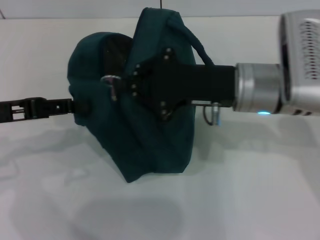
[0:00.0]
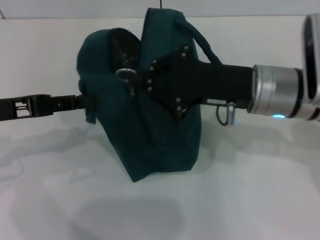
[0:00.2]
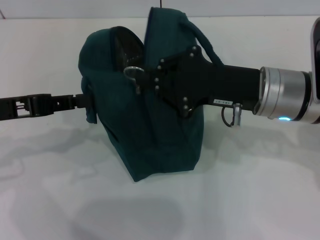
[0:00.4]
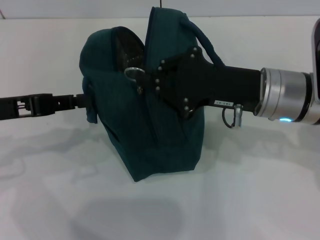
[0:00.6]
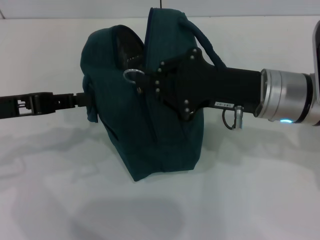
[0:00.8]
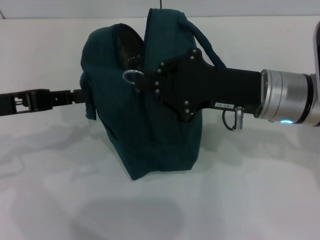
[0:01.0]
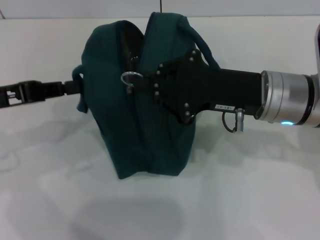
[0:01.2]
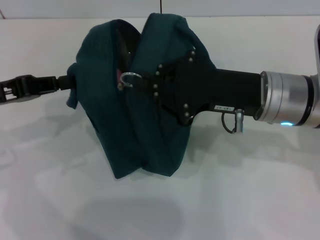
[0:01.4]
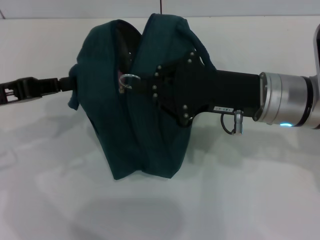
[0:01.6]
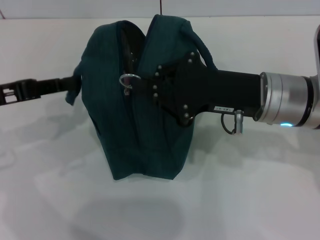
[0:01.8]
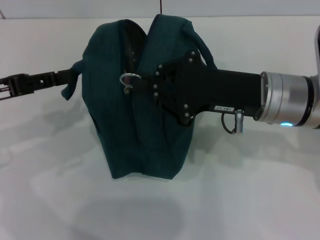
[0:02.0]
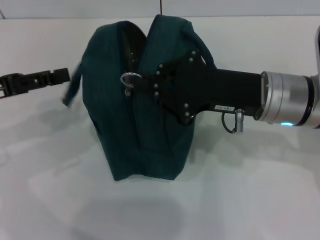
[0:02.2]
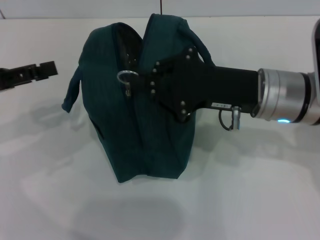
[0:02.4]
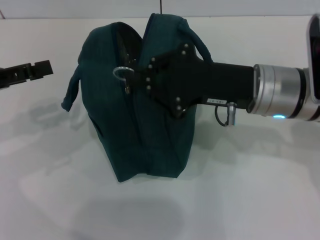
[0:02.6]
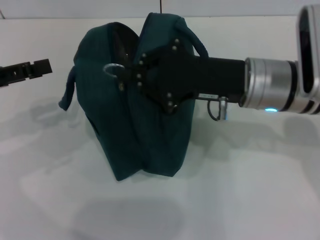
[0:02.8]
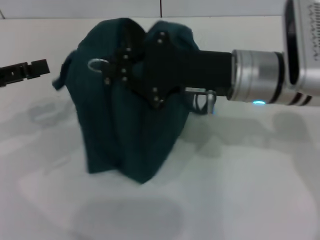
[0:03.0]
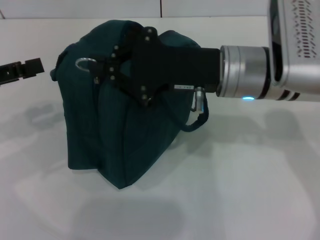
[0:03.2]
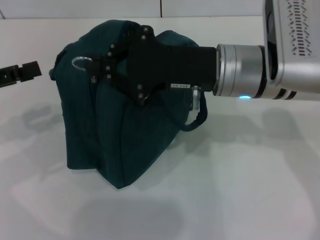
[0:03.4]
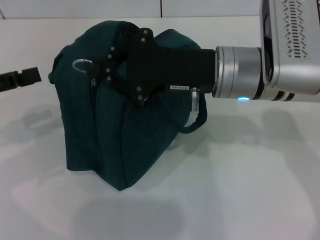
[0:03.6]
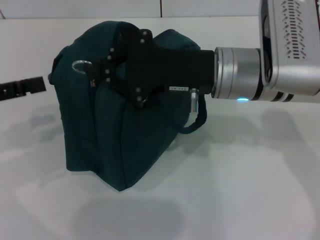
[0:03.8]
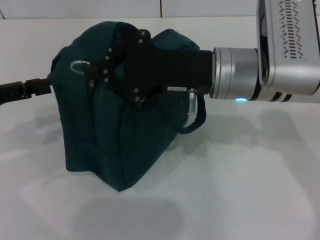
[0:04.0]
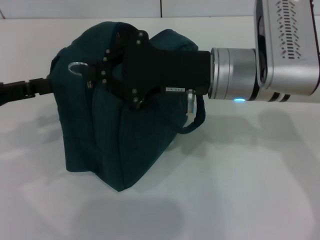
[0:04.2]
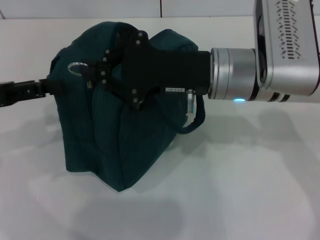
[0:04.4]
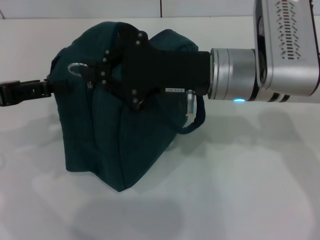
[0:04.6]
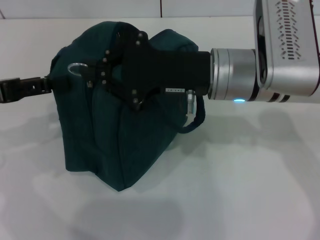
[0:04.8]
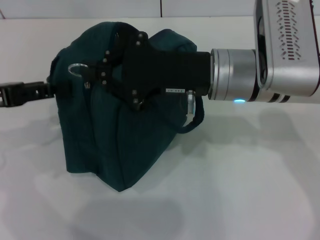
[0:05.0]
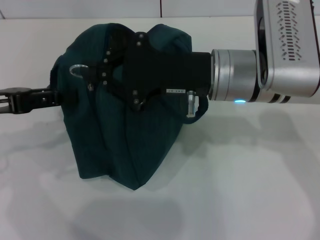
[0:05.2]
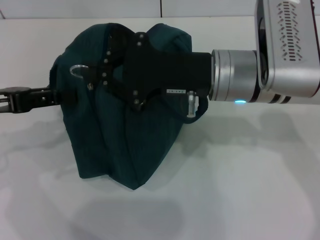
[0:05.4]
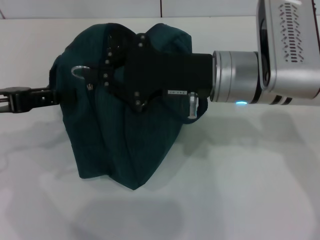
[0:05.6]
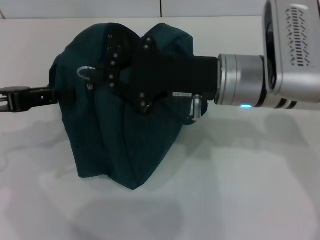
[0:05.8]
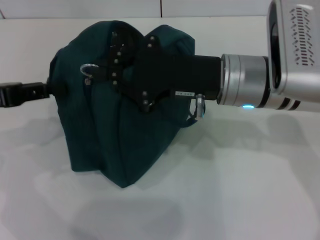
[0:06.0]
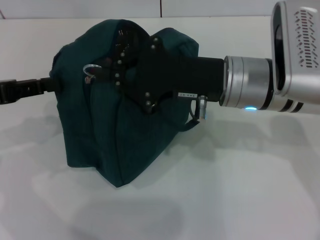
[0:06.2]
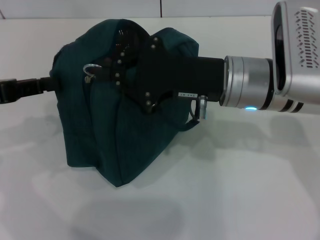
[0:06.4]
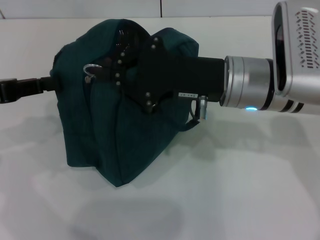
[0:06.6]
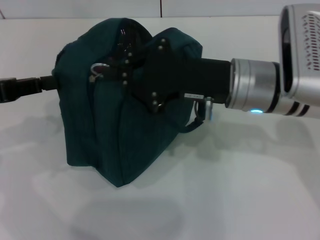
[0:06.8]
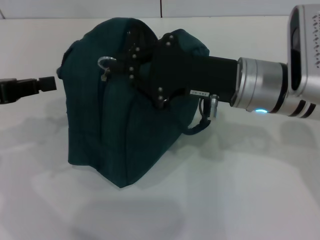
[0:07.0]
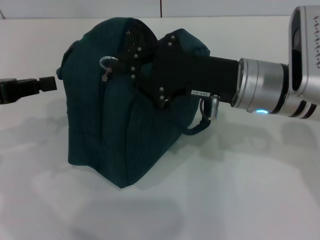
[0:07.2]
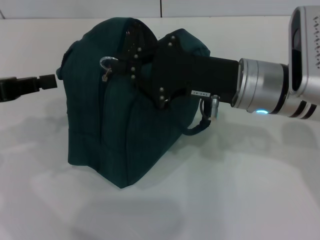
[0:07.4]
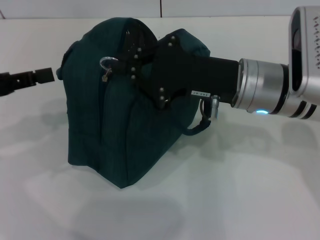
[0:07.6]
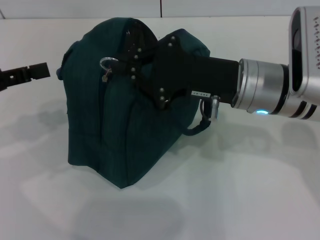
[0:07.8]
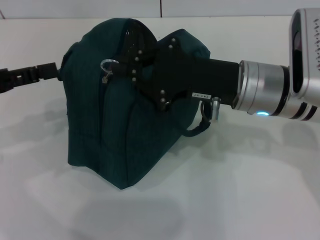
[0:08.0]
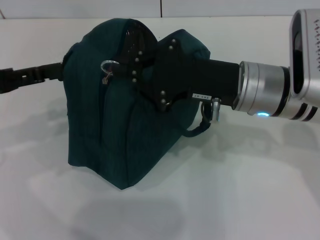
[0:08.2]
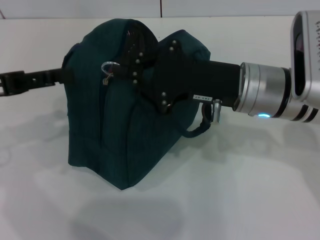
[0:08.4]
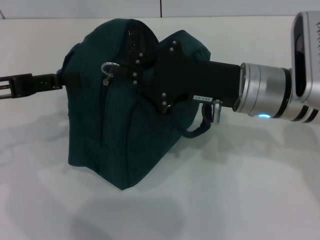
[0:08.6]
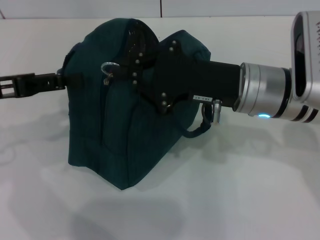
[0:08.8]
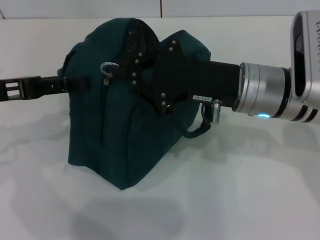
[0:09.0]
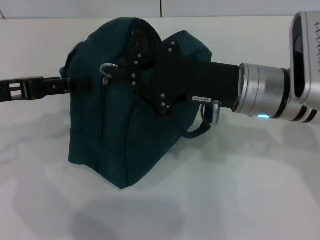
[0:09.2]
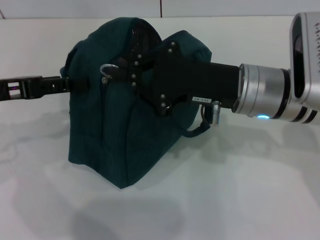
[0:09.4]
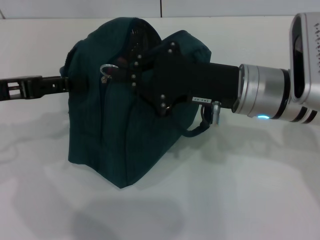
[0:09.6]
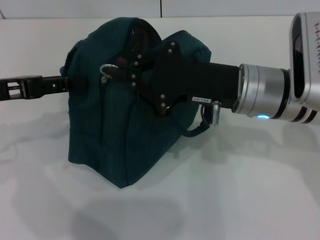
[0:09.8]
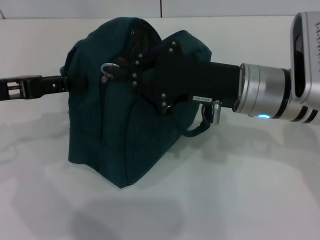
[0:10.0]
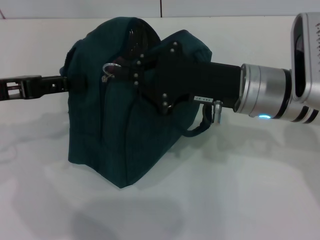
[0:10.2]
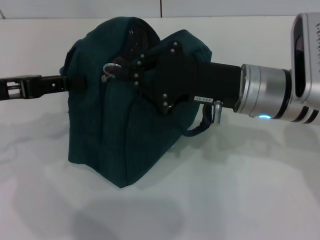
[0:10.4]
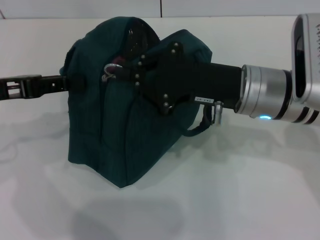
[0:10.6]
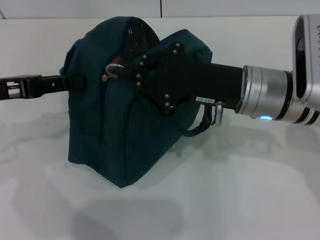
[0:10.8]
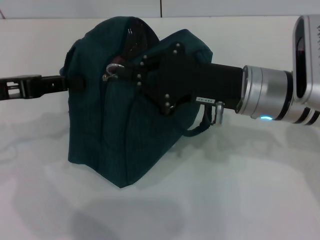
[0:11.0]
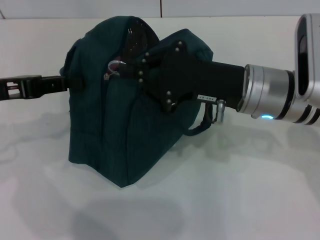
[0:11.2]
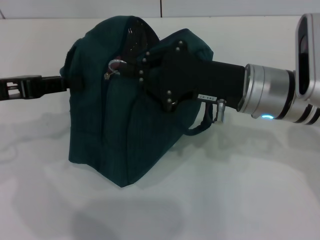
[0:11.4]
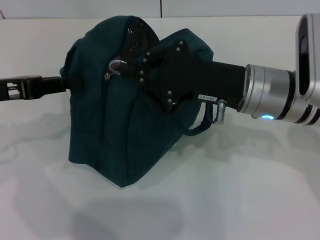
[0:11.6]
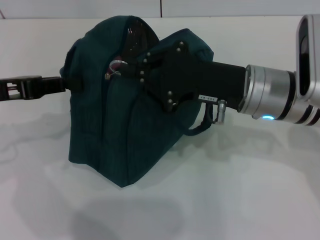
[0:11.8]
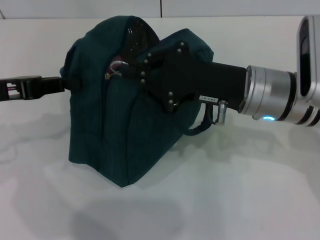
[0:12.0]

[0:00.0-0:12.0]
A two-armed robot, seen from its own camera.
0:00.0 to 0:01.6: The left gripper closes its fingers.
0:01.6 to 0:03.0: The left gripper opens.
0:03.0 to 0:04.4: The grippers make only small movements.
0:04.4 to 0:06.0: The left gripper closes up.
0:06.0 to 0:07.6: The left gripper closes its fingers.
0:07.6 to 0:09.0: The left gripper opens.
0:09.0 to 0:10.4: The left gripper closes up.
0:10.4 to 0:12.0: Neither gripper changes place.

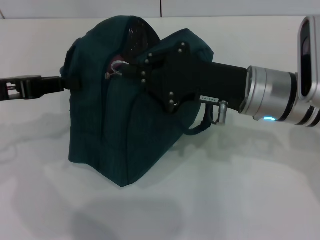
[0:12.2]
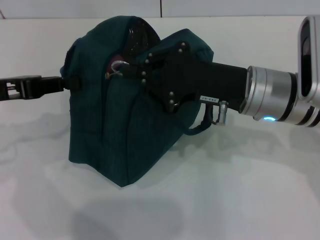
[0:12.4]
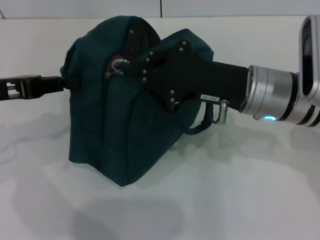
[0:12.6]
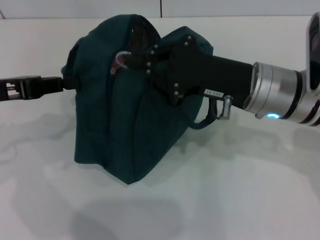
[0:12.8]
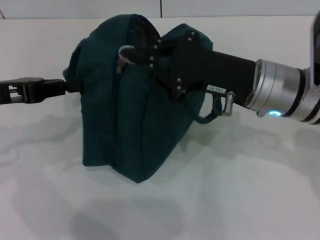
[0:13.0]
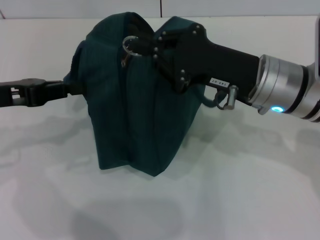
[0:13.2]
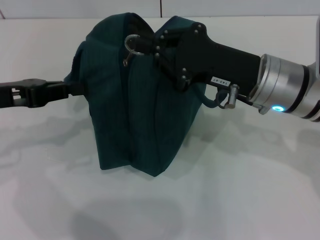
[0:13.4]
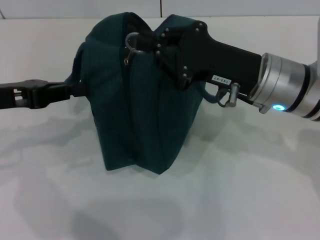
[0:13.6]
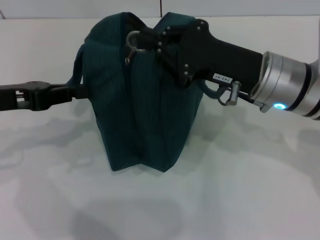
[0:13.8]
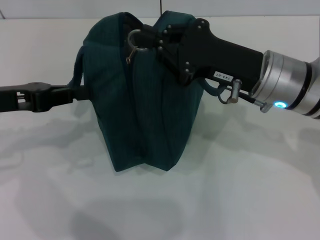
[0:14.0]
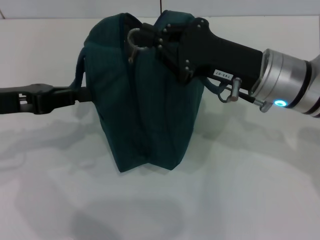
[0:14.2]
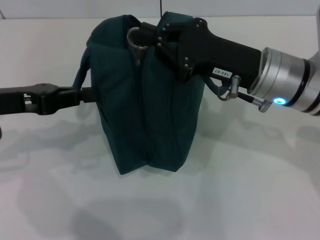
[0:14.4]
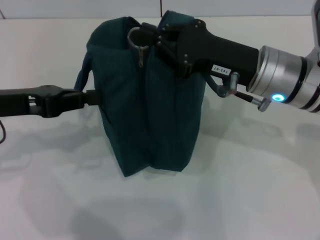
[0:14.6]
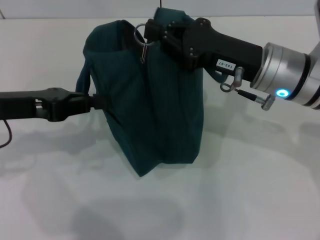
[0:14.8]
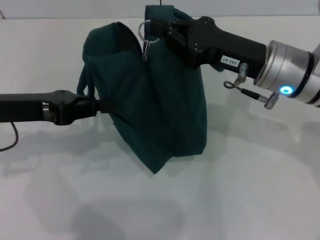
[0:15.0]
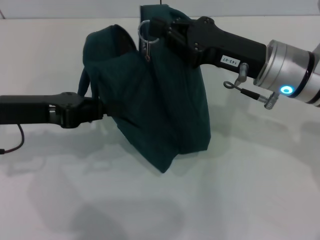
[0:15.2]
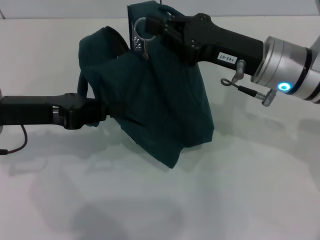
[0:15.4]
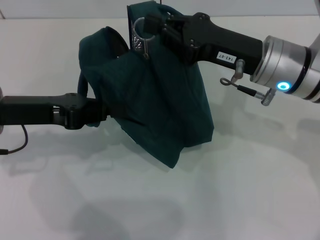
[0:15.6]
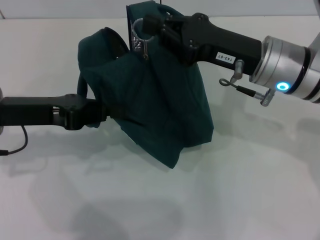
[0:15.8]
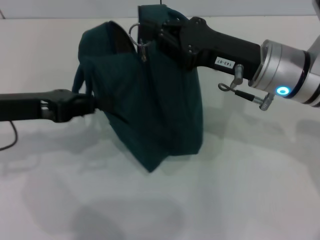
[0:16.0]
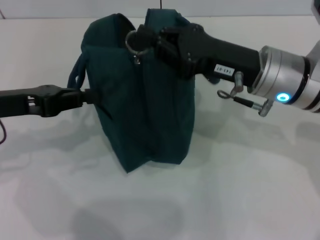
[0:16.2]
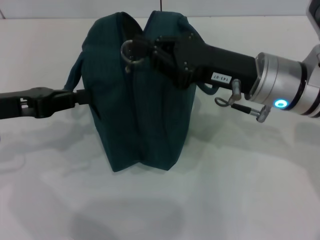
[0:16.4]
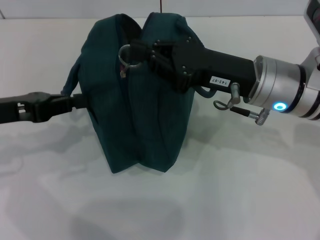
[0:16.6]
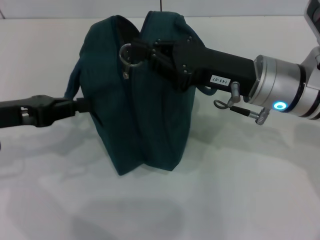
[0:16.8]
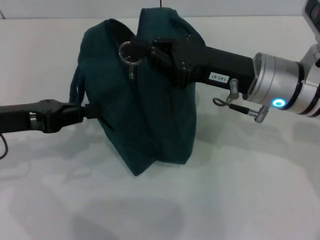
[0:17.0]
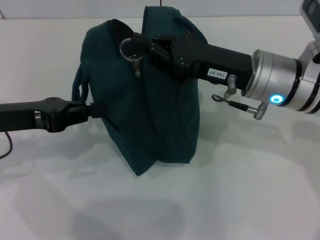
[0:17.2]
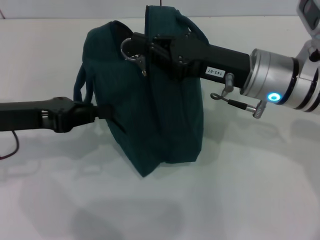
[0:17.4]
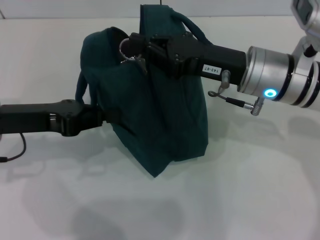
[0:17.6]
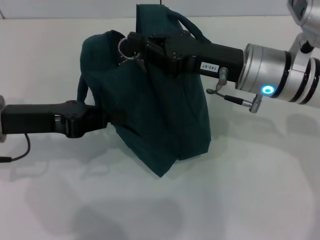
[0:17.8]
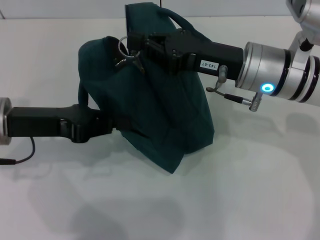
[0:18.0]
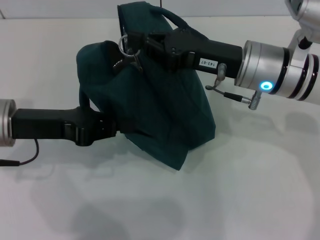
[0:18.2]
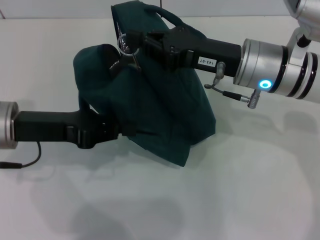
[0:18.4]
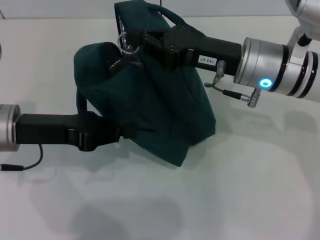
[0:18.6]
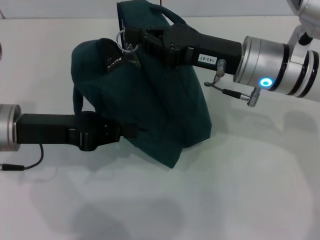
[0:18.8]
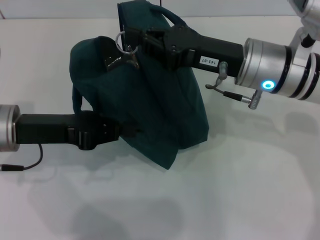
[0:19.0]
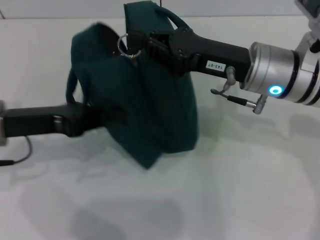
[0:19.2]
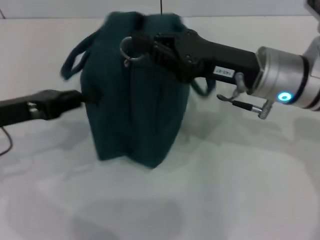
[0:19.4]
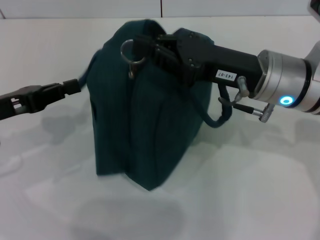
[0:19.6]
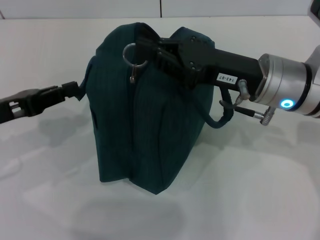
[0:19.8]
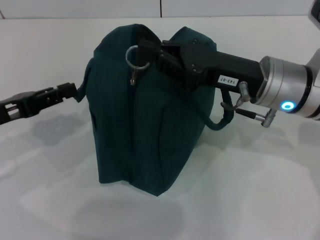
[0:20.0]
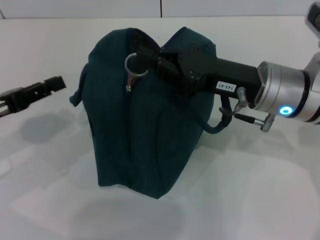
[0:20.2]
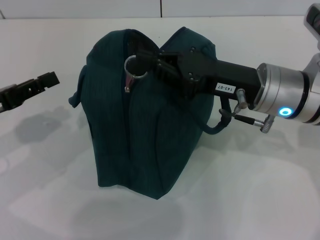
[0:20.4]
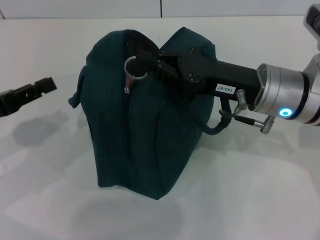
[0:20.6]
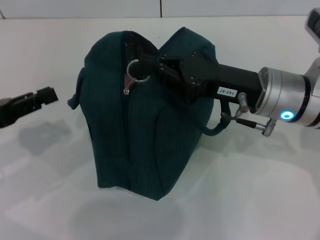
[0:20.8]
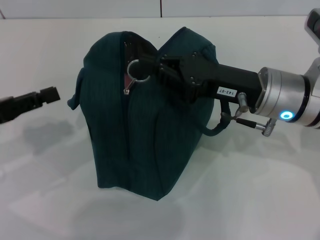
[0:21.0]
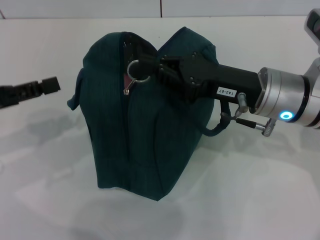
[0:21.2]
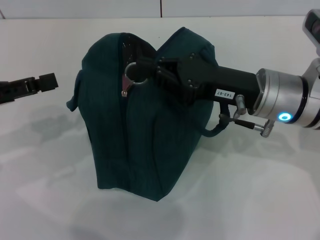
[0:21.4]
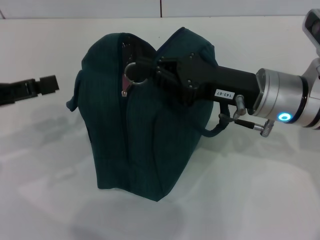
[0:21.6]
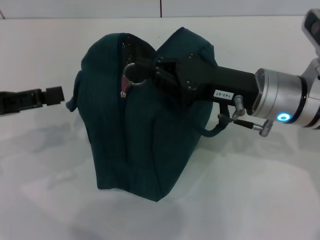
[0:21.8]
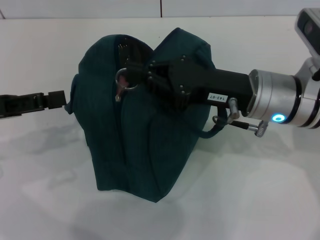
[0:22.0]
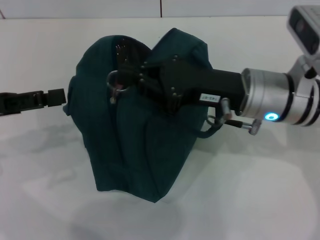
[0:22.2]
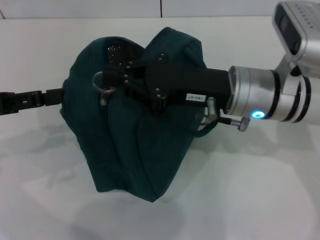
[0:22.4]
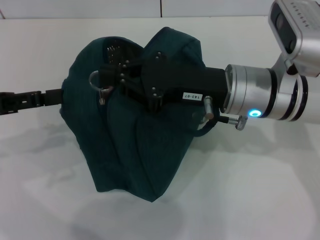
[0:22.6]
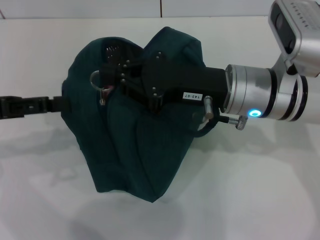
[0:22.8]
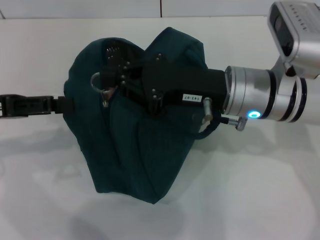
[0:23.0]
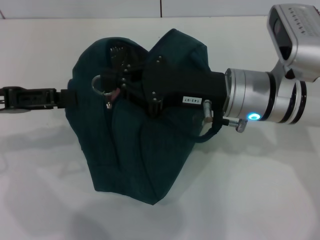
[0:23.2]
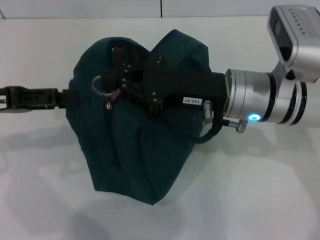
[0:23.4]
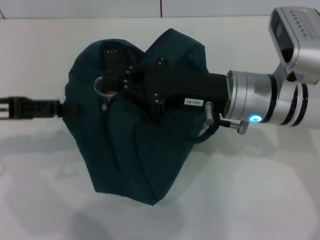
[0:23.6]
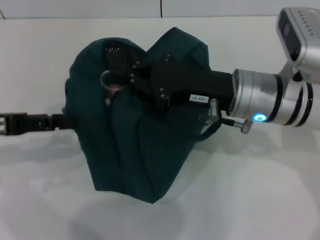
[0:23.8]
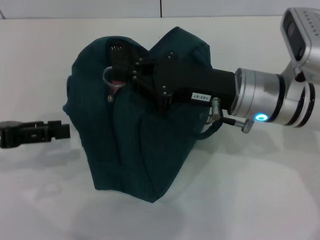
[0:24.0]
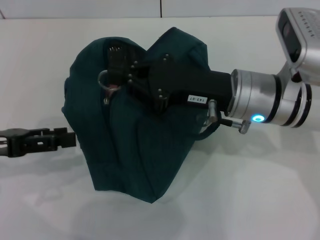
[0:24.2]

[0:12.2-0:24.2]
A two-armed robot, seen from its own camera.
0:13.8 to 0:15.2: The grippers move only a little.
0:16.6 to 0:18.2: The left gripper travels to the right by approximately 5 cm.
0:18.2 to 0:19.8: The left gripper shifts roughly 5 cm to the left.
0:19.8 to 0:21.2: The left gripper opens its fingers.
0:21.2 to 0:22.6: The left gripper opens.
0:22.6 to 0:24.2: The grippers move only a little.
